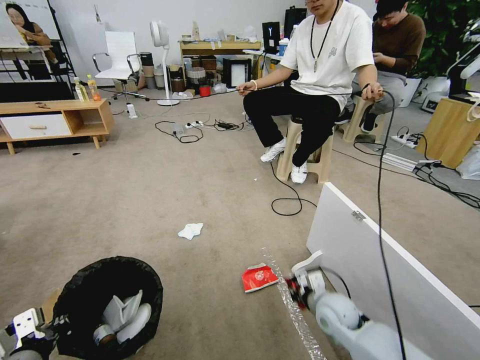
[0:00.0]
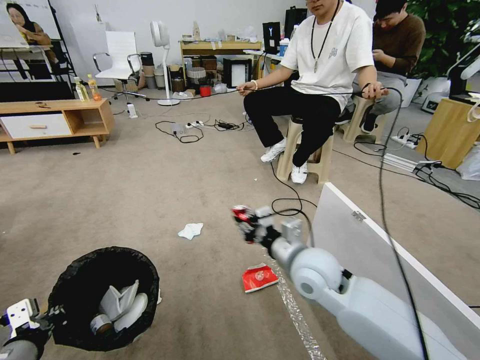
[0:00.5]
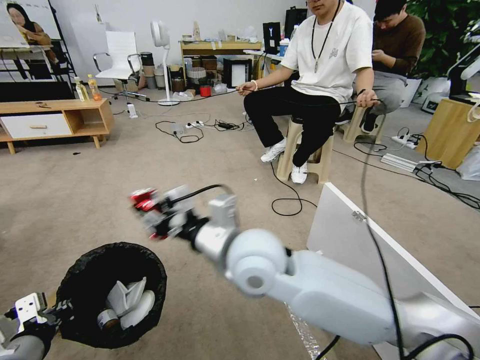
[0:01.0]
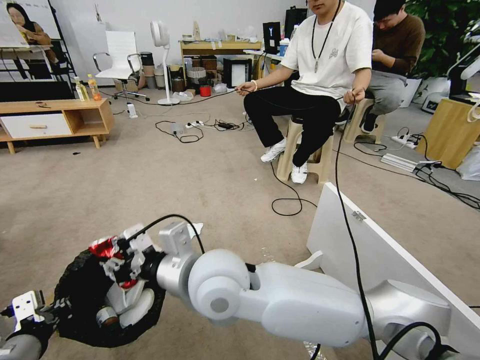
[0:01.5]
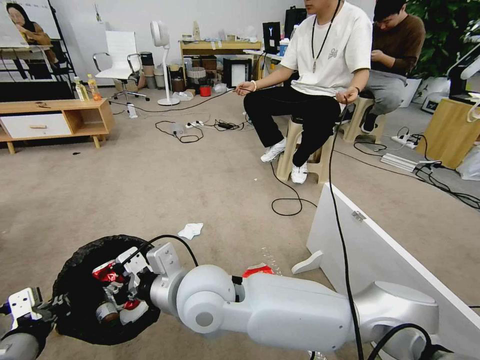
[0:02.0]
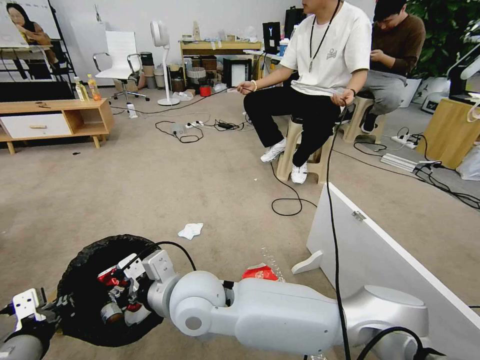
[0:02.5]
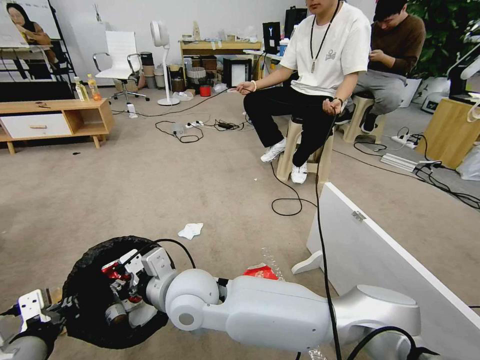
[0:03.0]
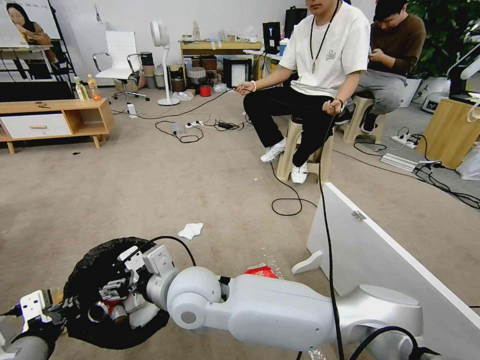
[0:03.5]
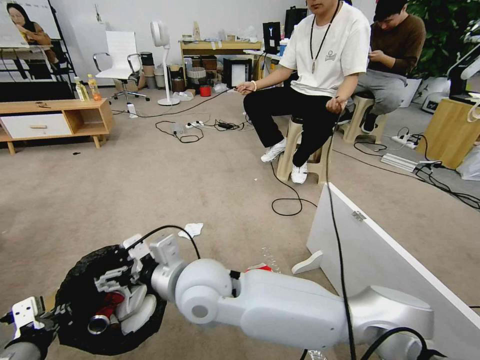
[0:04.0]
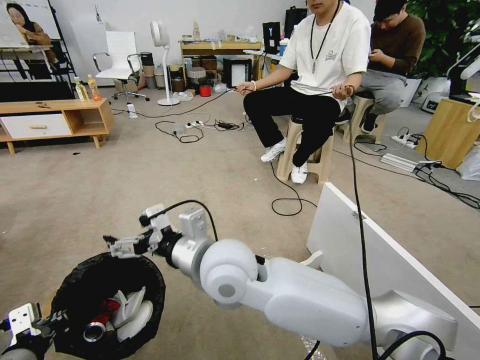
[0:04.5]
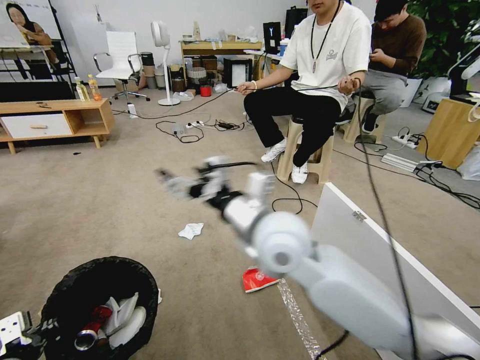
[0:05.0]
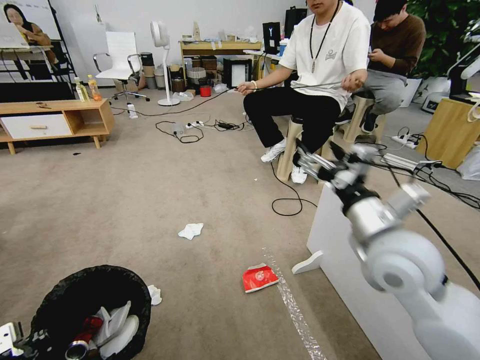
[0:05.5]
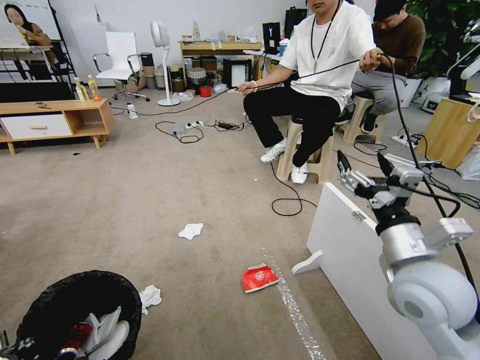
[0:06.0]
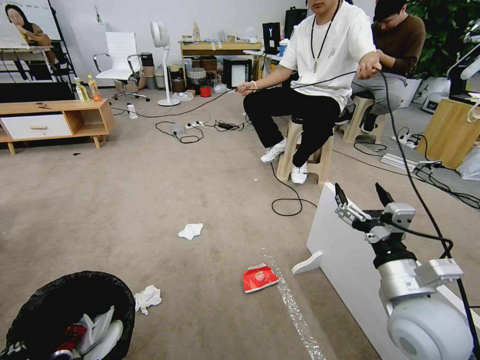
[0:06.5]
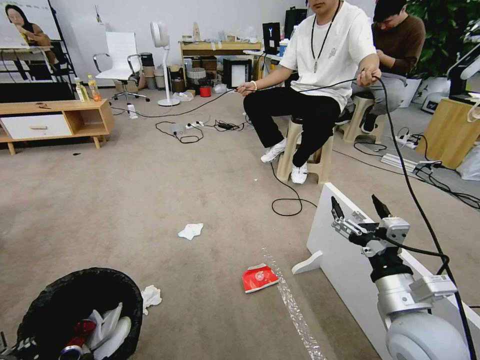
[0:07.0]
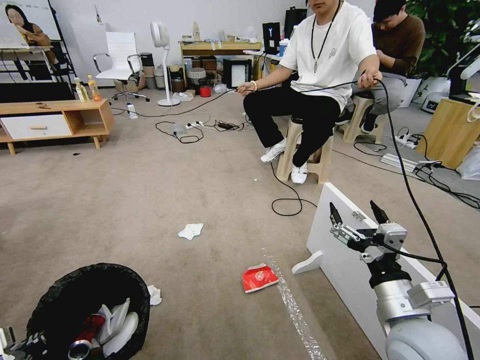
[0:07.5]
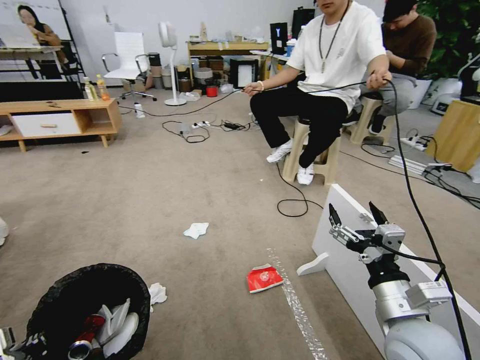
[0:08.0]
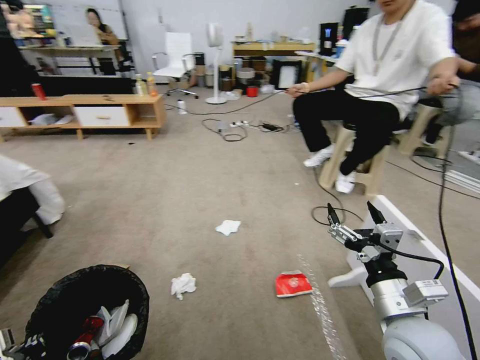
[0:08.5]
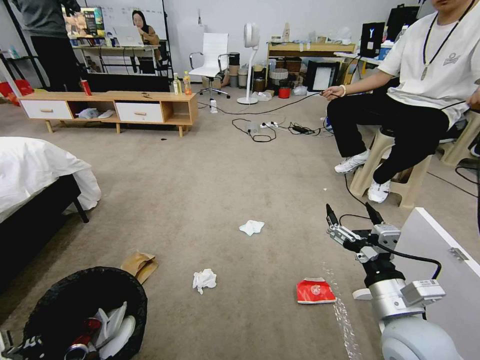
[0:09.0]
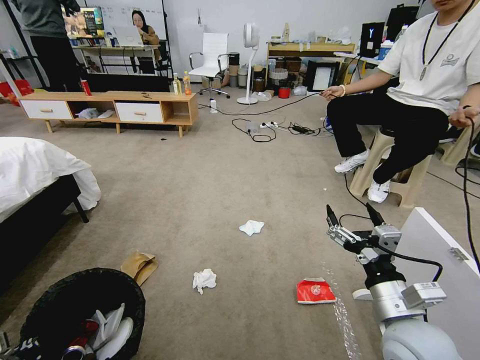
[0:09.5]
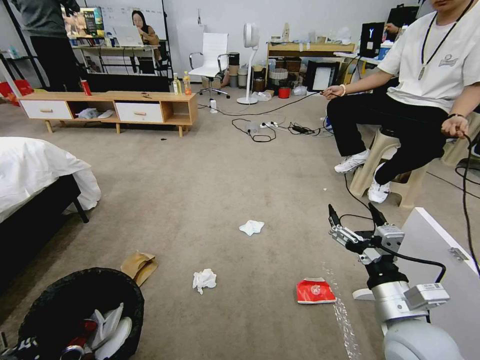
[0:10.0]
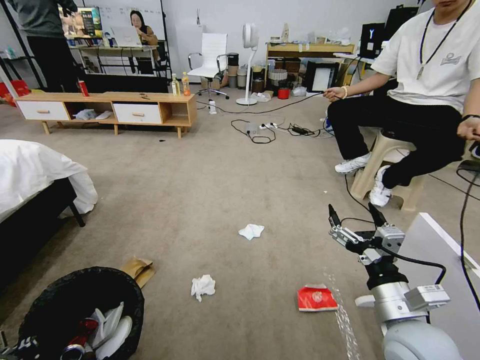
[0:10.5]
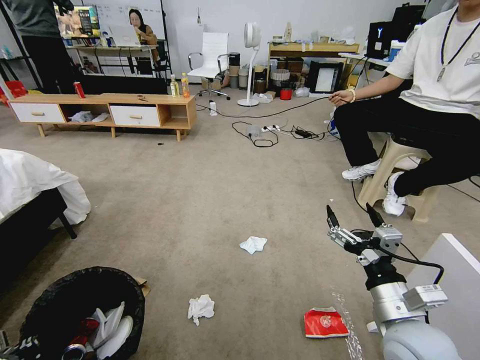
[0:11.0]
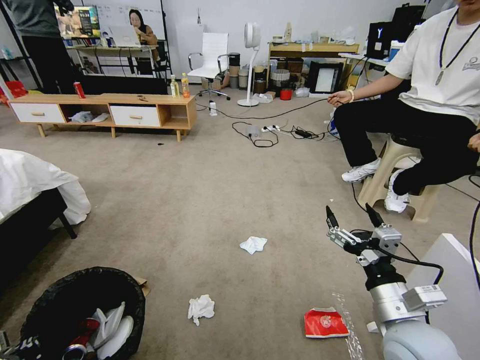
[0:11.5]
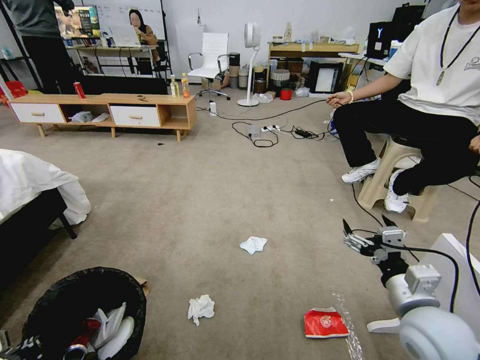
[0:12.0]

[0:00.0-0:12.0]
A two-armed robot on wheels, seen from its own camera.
Task of the whole recording: Pick up the trash bin and place the garbage on the floor into it.
0:00.0 to 0:02.0: The right gripper is displaced to the left and upward by about 40 cm.
0:02.0 to 0:04.0: The right gripper opens up.
0:04.0 to 0:06.0: The right gripper moves to the right, about 35 cm, while the left gripper shifts by approximately 5 cm.
0:06.0 to 0:08.0: The right gripper is displaced downward and backward by about 10 cm.

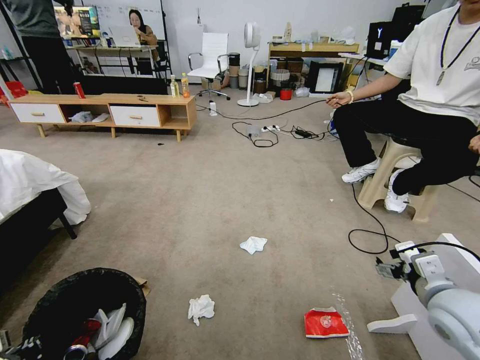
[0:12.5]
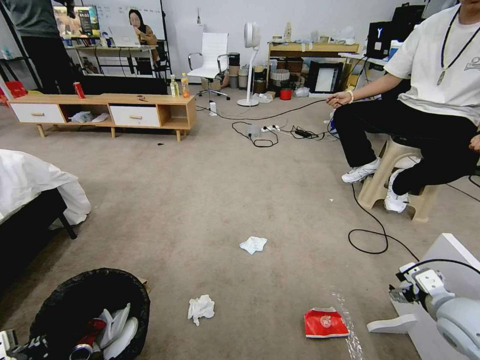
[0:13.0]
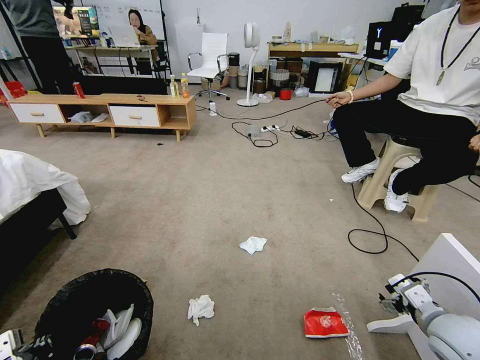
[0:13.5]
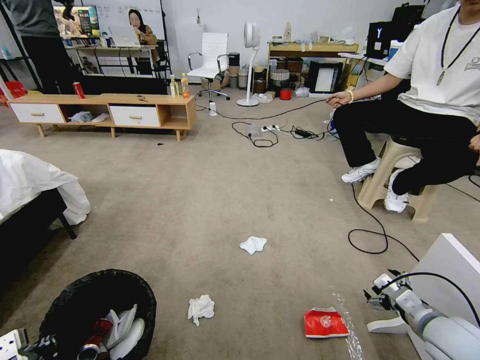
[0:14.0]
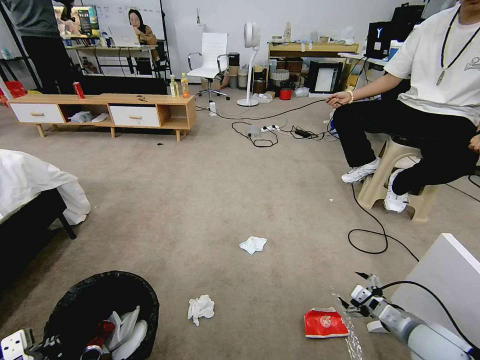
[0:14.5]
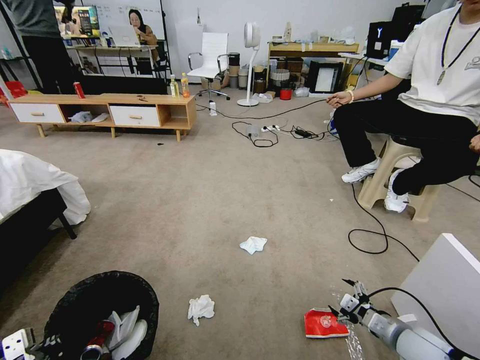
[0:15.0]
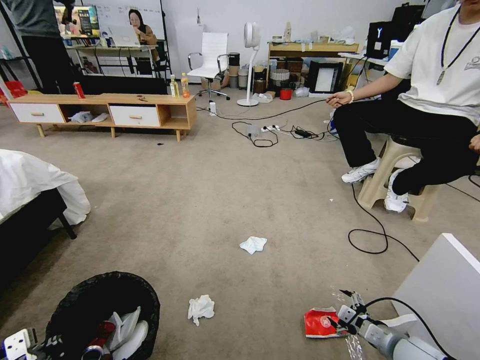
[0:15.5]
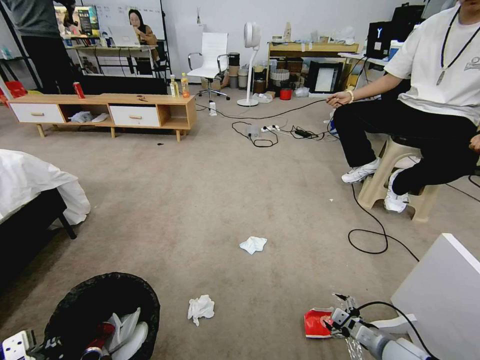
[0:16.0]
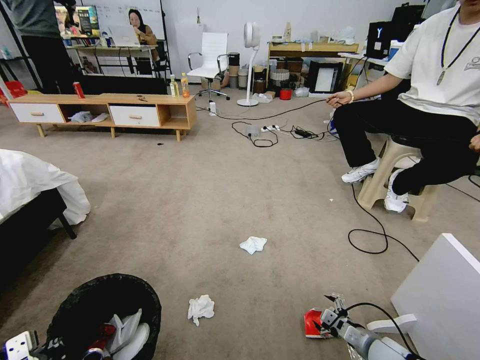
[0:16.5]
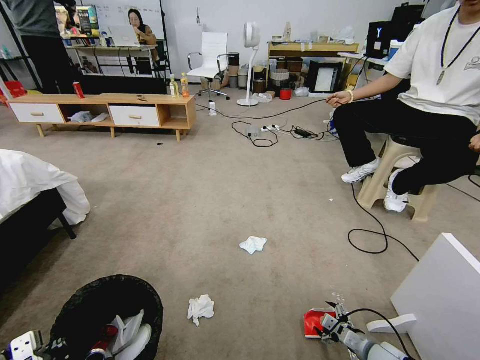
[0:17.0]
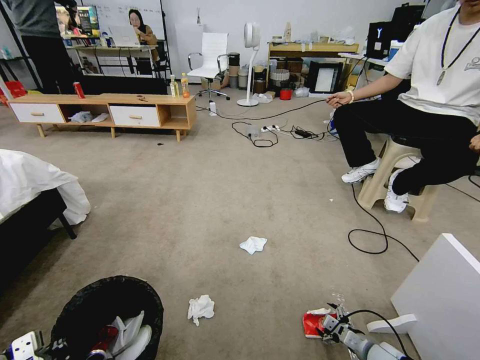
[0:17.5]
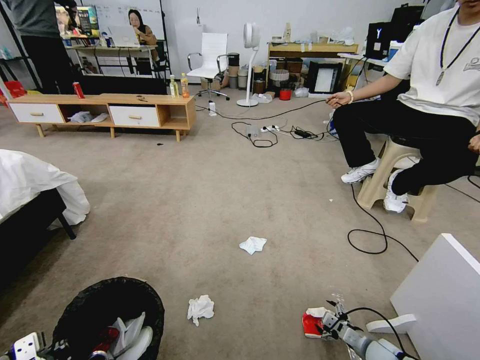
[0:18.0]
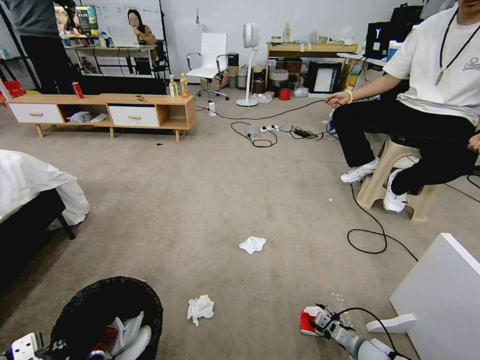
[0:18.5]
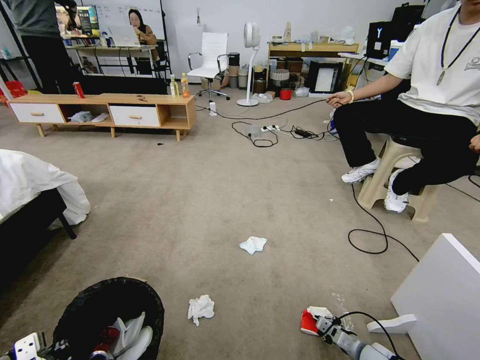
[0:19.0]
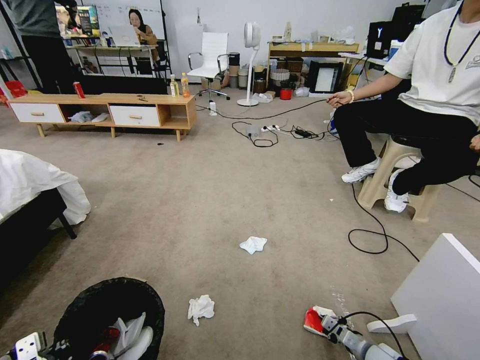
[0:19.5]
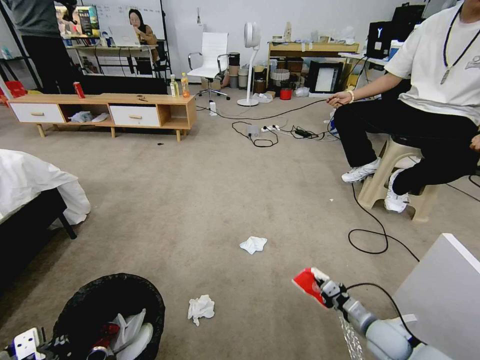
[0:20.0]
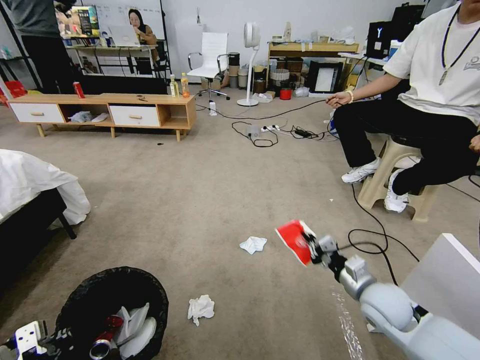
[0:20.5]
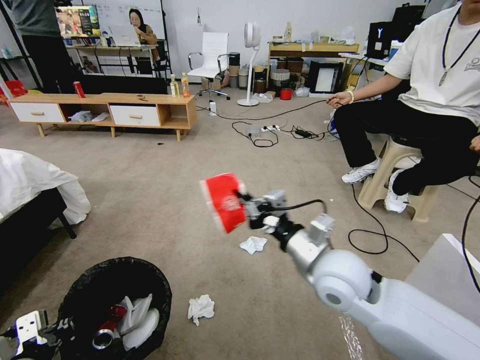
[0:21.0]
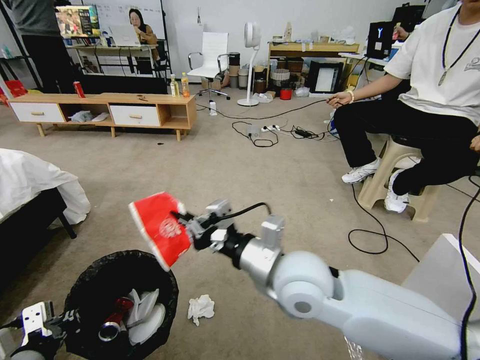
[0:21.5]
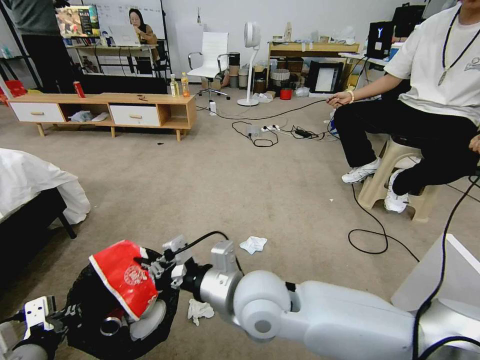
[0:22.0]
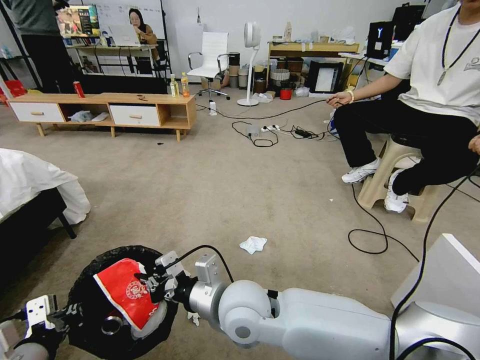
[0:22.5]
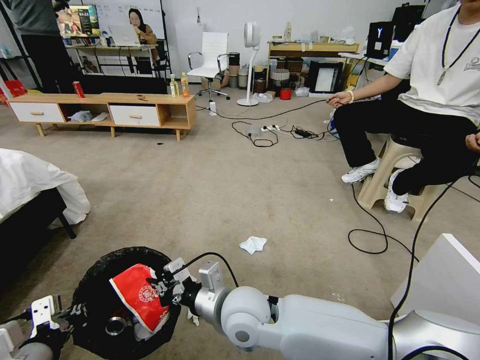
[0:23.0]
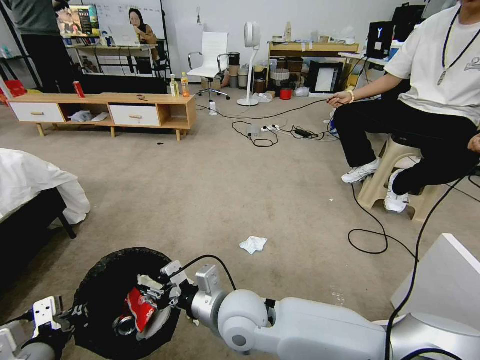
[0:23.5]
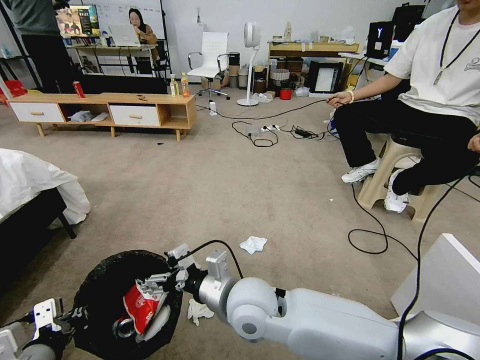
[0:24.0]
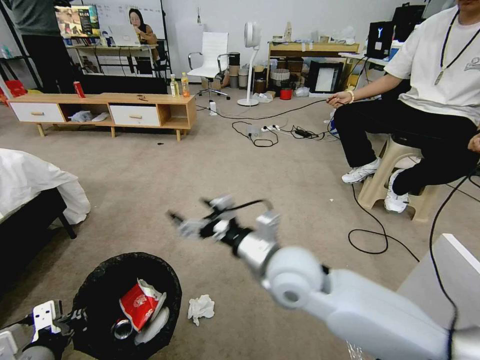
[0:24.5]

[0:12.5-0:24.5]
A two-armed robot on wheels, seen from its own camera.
Task of the whole recording: Pick up the trash bin and place the garbage on the floor into it.
0:12.5 to 0:14.5: The right gripper is displaced downward by approximately 15 cm.
0:14.5 to 0:16.5: The right gripper moves downward, approximately 15 cm.
0:16.5 to 0:18.5: The right gripper heads downward, covering some 5 cm.
0:18.5 to 0:20.5: The right gripper moves upward, approximately 25 cm, and closes up.
0:20.5 to 0:22.5: The right gripper moves to the left, some 30 cm.
0:22.5 to 0:24.5: The right gripper goes some 10 cm to the right and upward, and opens.

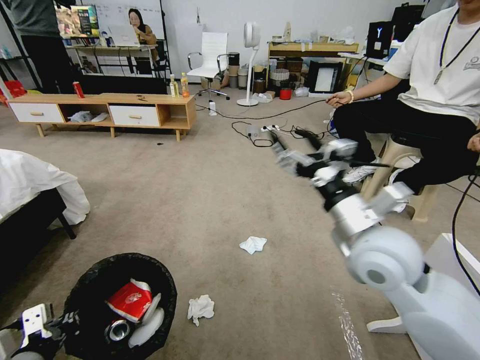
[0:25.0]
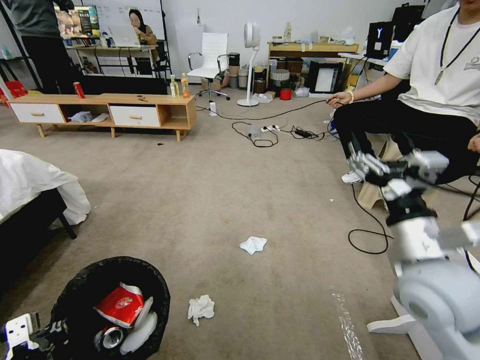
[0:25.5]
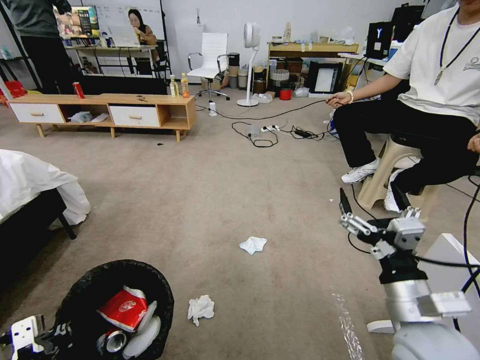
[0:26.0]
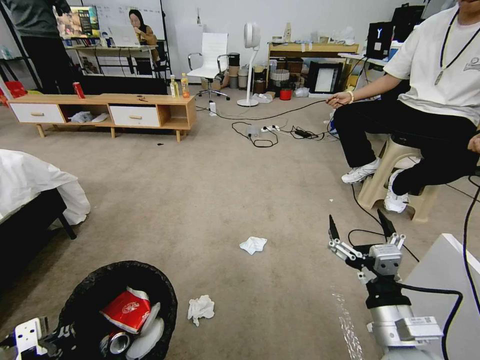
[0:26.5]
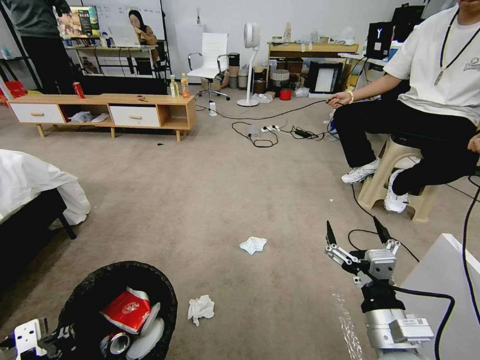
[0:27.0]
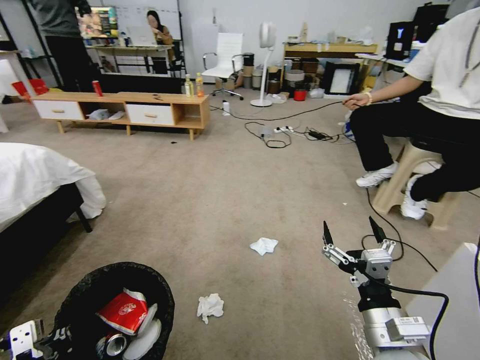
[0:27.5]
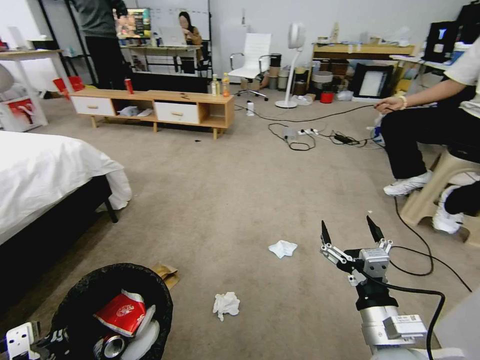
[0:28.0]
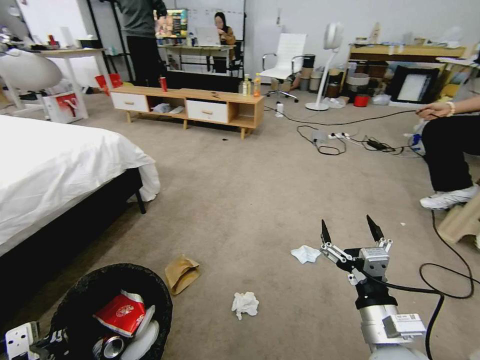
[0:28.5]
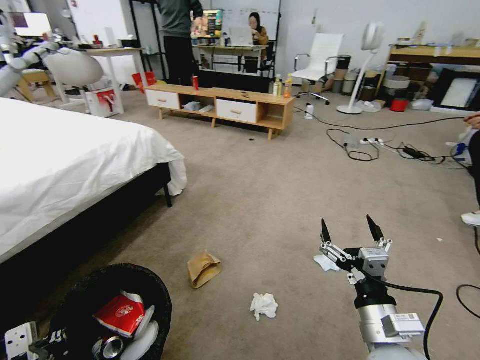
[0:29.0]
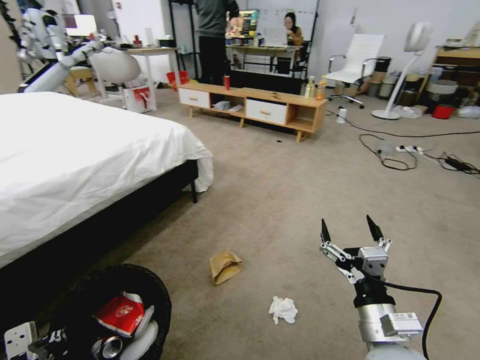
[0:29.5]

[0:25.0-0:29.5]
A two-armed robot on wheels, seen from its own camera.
Task of the whole recording: Pick up the trash bin and place the garbage on the floor into it.
0:25.0 to 0:27.0: The right gripper heads downward and backward, covering about 20 cm.
